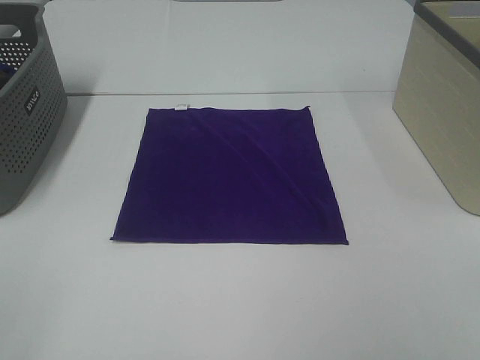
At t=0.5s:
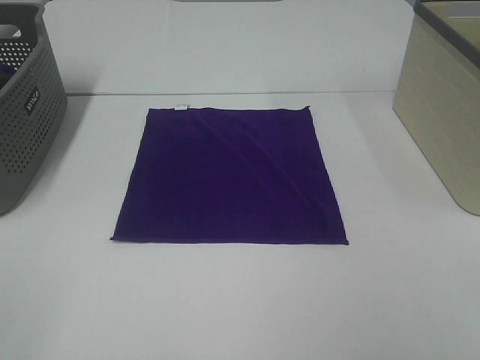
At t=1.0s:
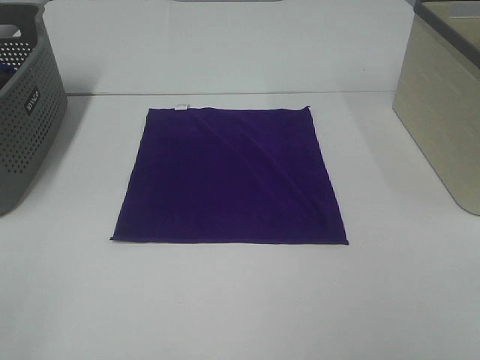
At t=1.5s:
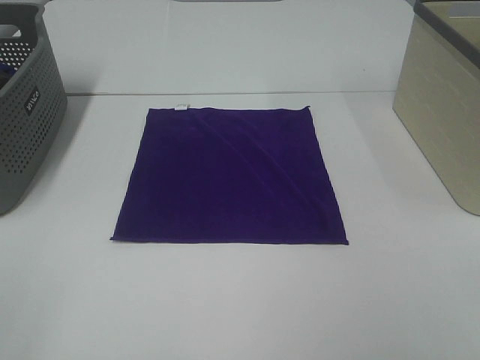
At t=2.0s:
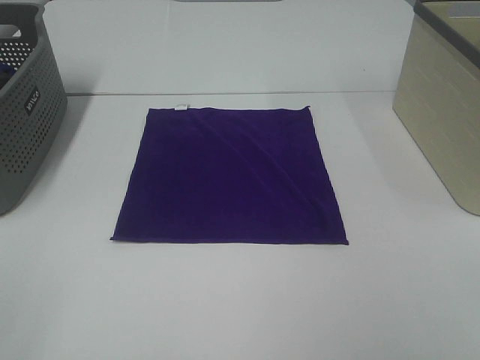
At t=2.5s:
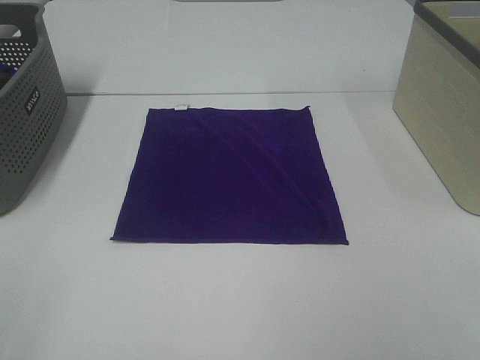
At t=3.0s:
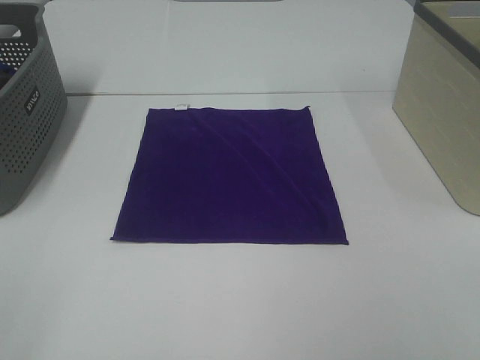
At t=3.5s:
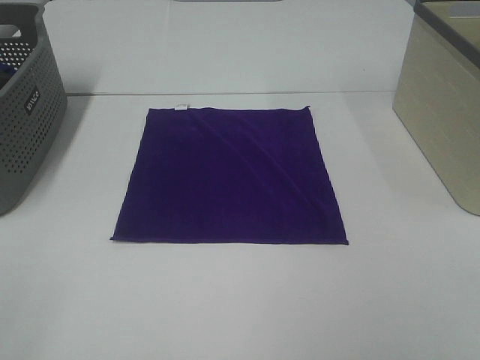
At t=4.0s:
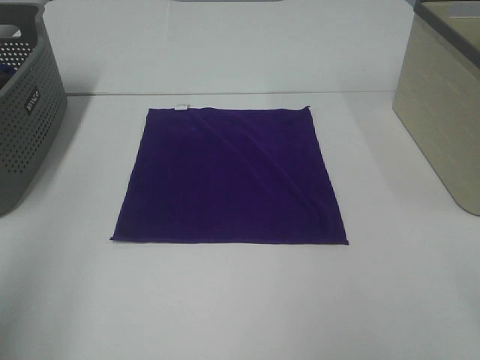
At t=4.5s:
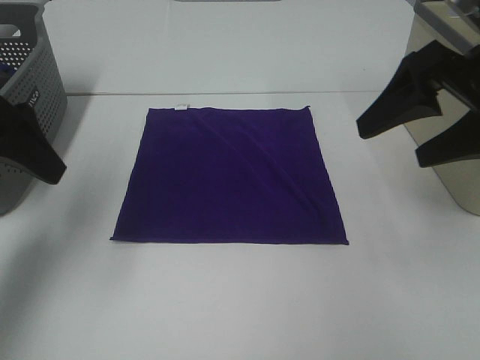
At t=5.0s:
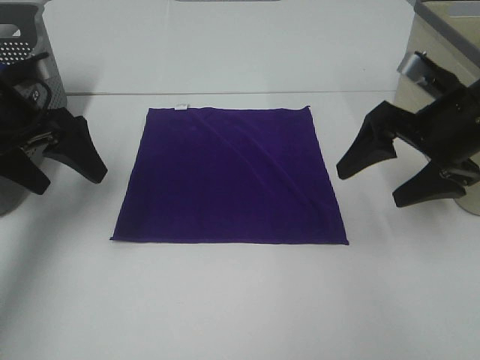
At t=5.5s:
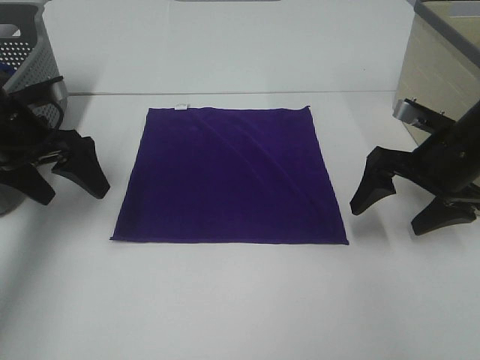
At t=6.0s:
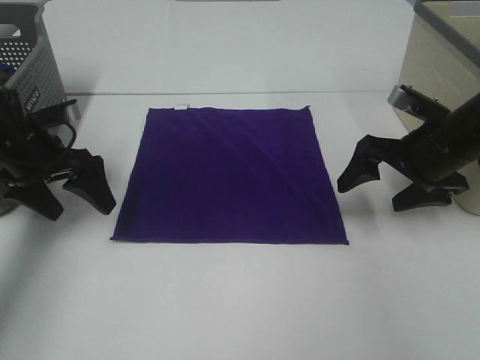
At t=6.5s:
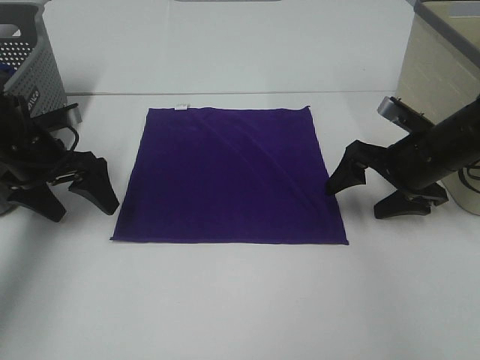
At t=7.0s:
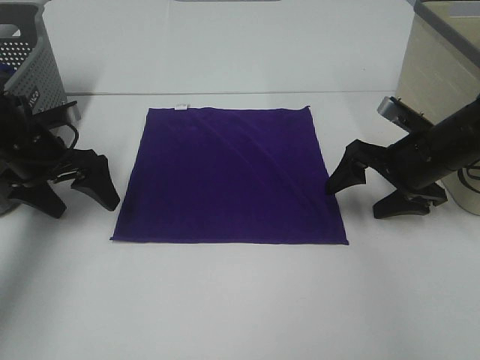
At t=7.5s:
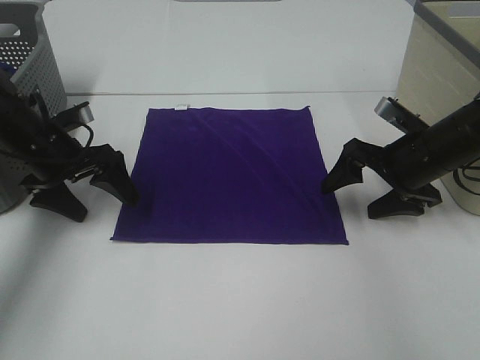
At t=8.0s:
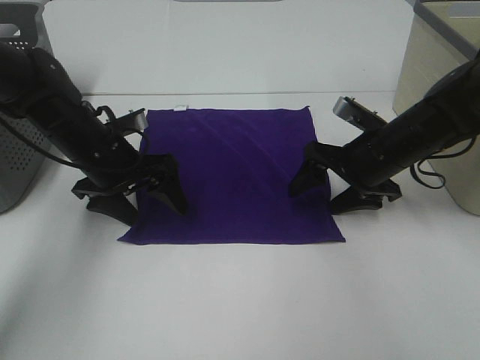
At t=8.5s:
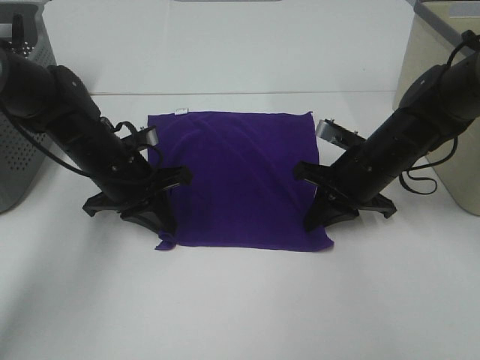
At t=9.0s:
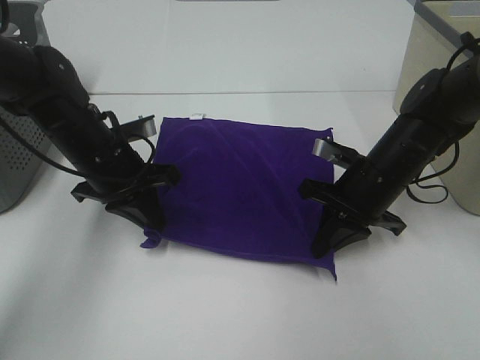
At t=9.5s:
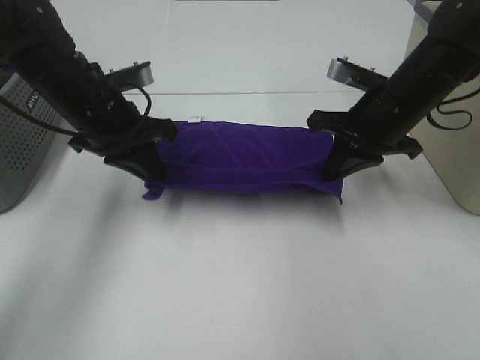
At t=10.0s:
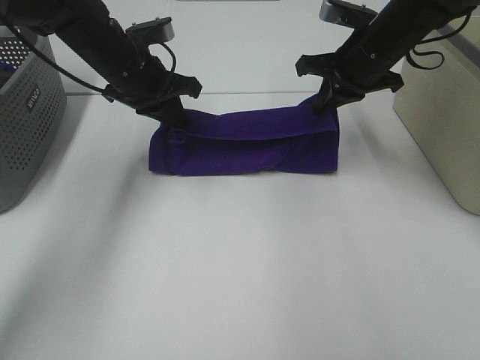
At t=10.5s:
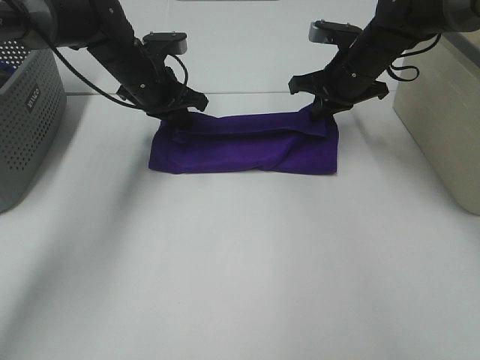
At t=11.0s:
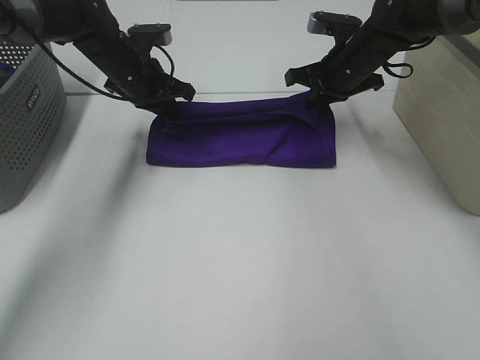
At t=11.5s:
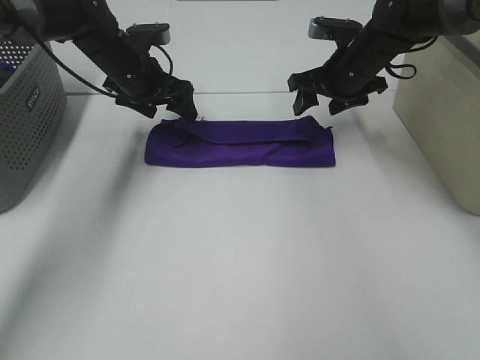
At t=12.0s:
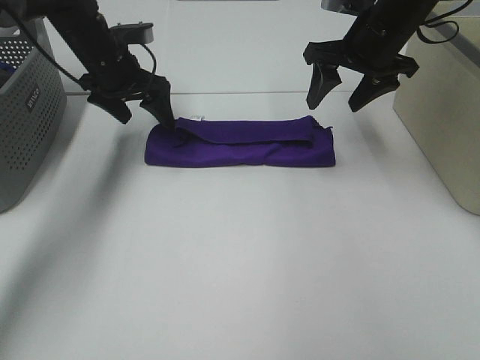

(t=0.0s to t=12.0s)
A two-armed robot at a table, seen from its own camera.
Task of the whole recording: Fold towels.
Step, t=0.0s - t=8.5s: Left hand: grab the bottom left corner of purple towel.
Step, t=0.0s - t=8.5s: Right hand: grab the bottom right corner of purple towel.
Step, t=9.0s - t=11.0s: Left hand: fold the purple towel up.
Step, t=9.0s - t=11.0s: Right hand: fold the purple towel up.
t=0.0s - t=2.0s: Both grippers stay about where they are.
t=2.0s - t=4.0s: The left gripper travels forward and upward by about 15 cm.
t=4.0s - t=6.0s: The grippers both shift forward and downward by some 30 cm.
t=6.0s - t=8.0s: The right gripper travels to the left by some 5 cm, while the left gripper travels to the right by approximately 10 cm.
t=8.0s - t=10.0s: Both grippers move upward and forward, approximately 15 cm. The right gripper closes up. Meanwhile the left gripper closes its fingers.
t=10.0s - t=12.0s: The left gripper travels forward and to the left by roughly 10 cm, and opens its fingers, while the right gripper opens.

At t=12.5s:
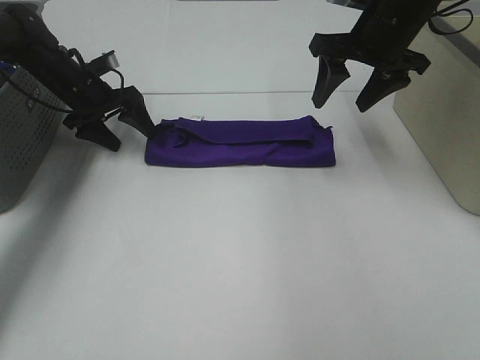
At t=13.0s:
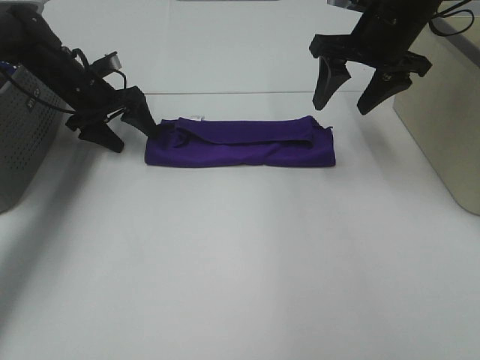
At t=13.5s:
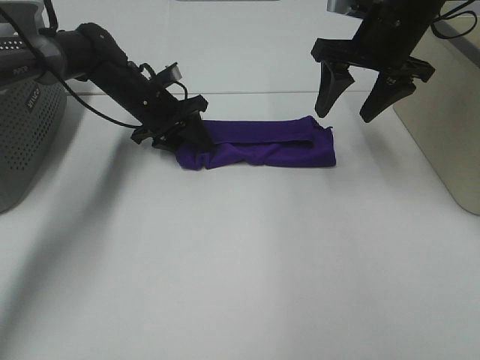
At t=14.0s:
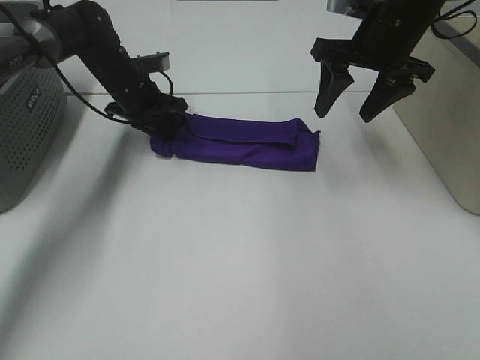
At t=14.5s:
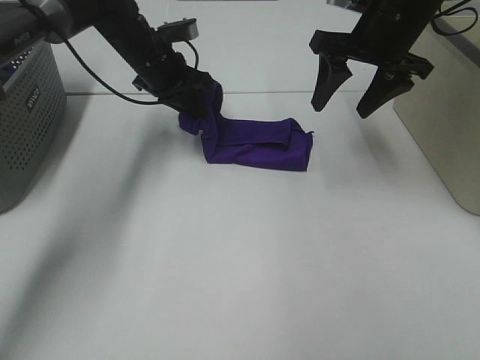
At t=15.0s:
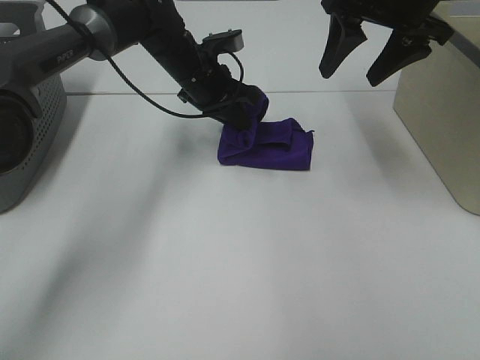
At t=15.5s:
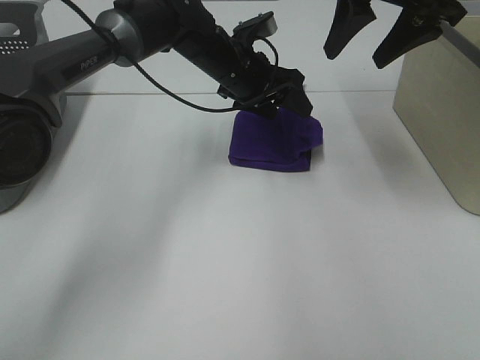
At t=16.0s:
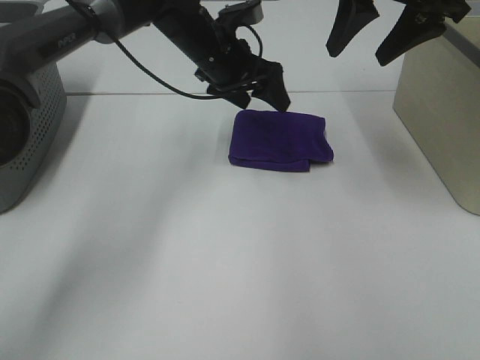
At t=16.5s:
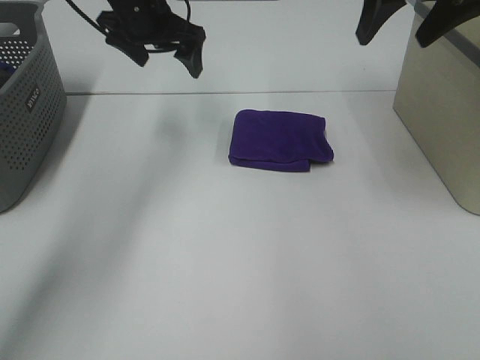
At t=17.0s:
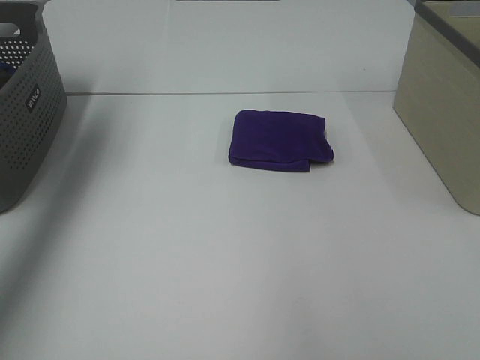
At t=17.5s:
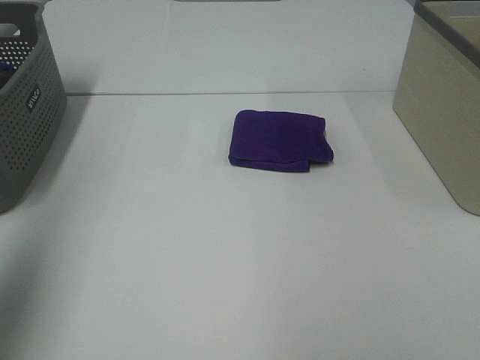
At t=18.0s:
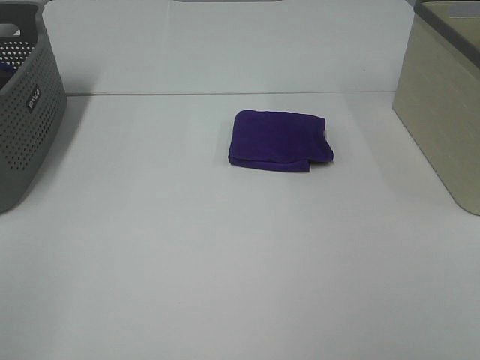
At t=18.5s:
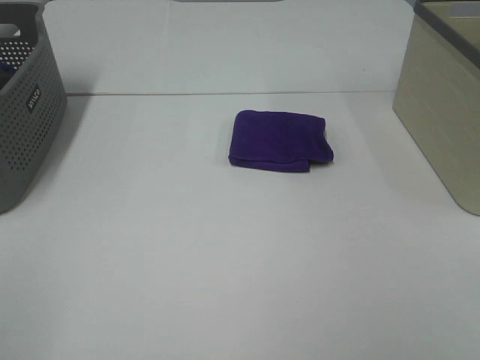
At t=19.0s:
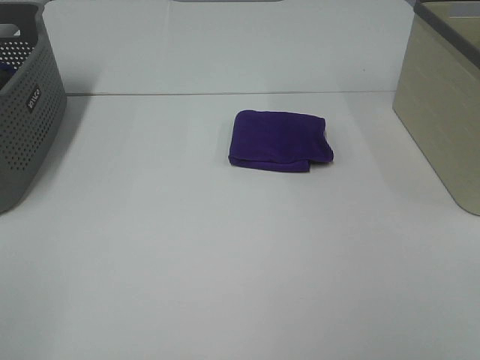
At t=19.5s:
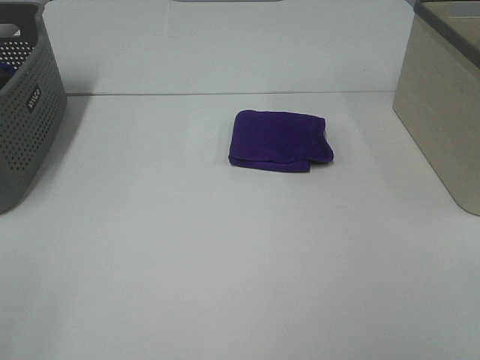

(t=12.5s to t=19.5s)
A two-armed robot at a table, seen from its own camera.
Task of the whole recording: Fold towels.
Step, t=12.5s - t=15.0s: Left hand: fold the purple towel from left to right.
t=12.5s - t=14.5s: The left gripper moves to the right, roughly 15 cm, and closes up.
t=14.5s - t=16.0s: The right gripper is displaced upward by some 5 cm; the left gripper shifts some 10 cm to the right, and opens its fingers.
t=16.0s - t=17.5s: The right gripper is displaced backward by some 35 cm. The left gripper shifts about 50 cm backward, to the left and upward.
t=17.5s - t=19.5s: The left gripper heads backward and downward, covering about 20 cm.

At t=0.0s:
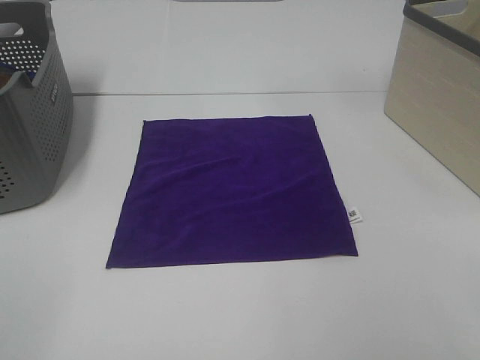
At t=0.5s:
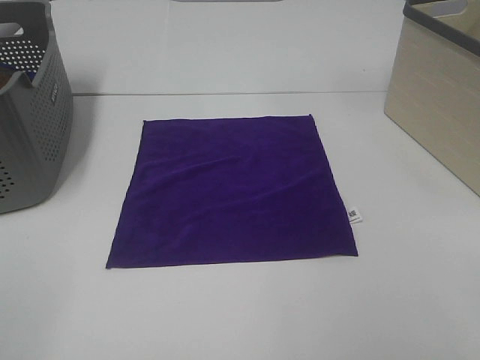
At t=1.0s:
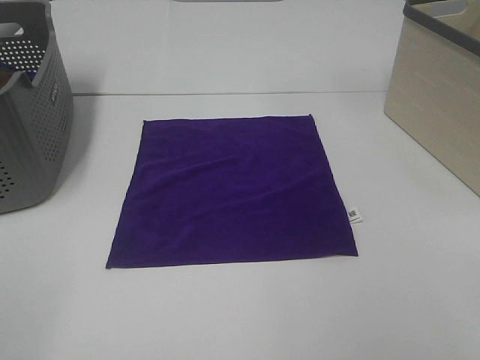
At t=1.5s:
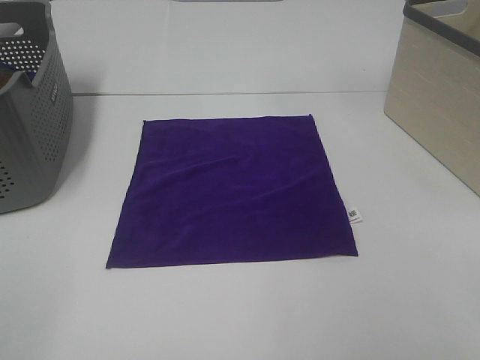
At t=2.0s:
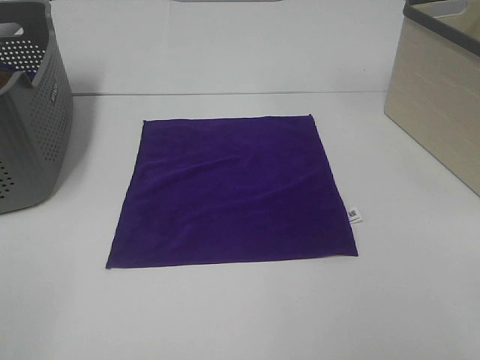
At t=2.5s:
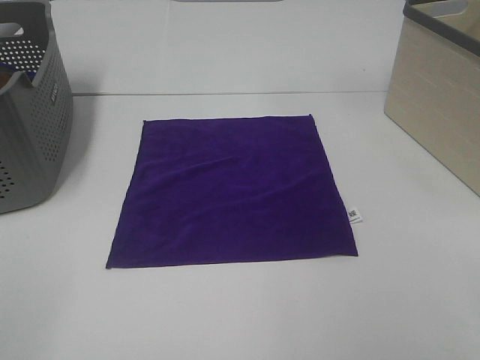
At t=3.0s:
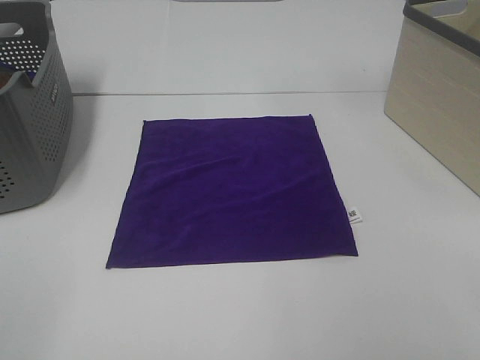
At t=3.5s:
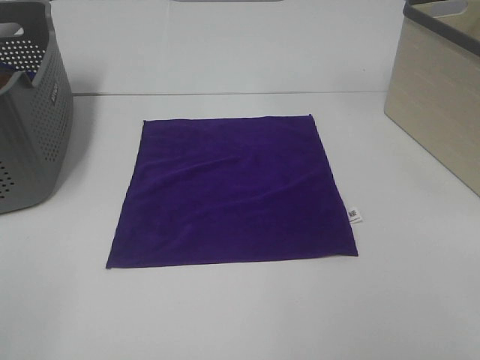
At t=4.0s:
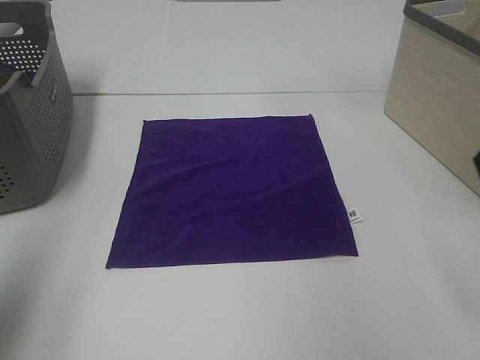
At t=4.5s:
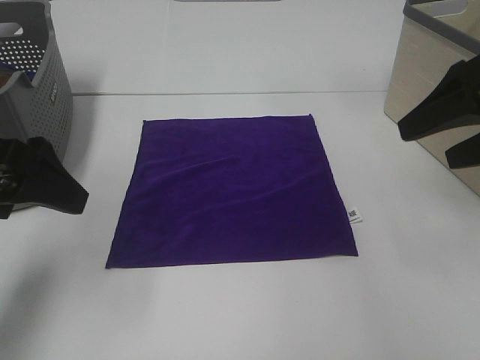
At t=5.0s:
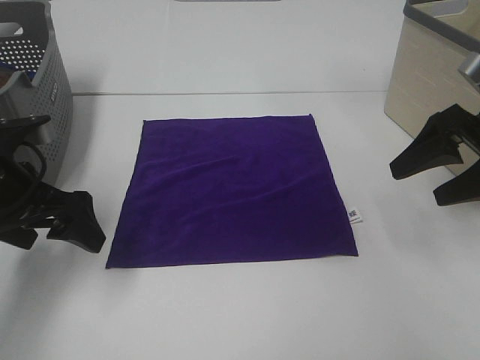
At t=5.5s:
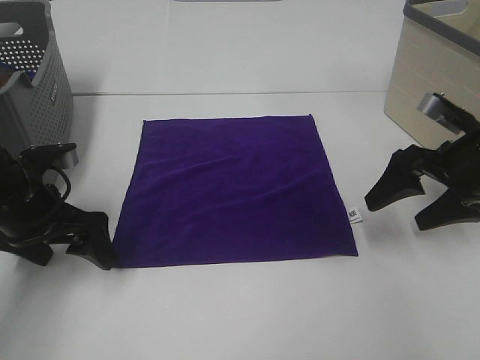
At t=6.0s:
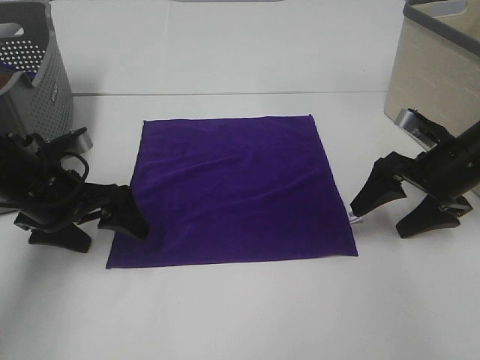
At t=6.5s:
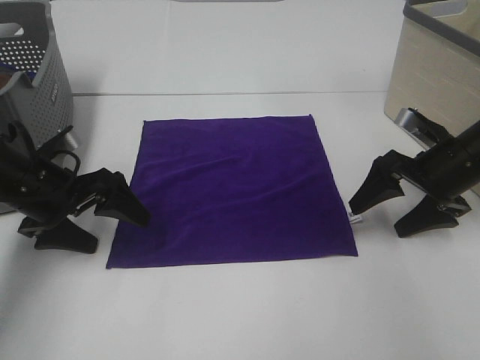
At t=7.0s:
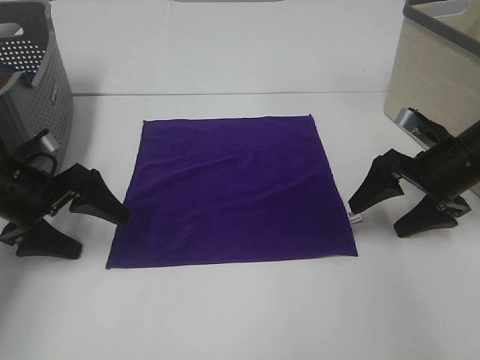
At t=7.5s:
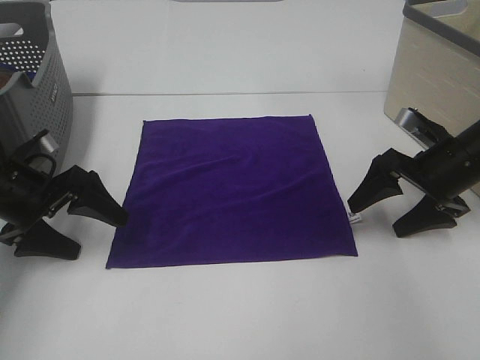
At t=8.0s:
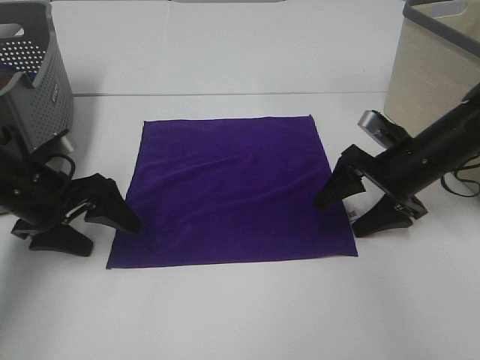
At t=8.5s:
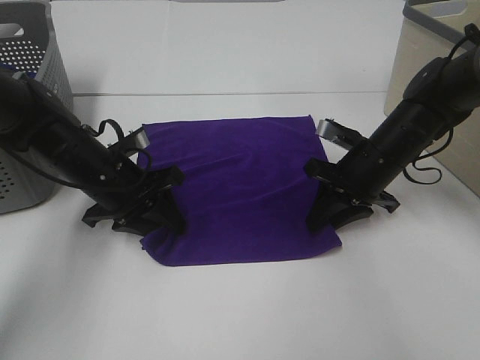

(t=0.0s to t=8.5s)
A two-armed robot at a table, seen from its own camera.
Task of the whole recording: Fold towels.
t=0.0s - t=2.0s: Neither gripper changes place.
t=2.0s - t=4.0s: The left gripper moves forward, some 15 cm.
t=4.0s - t=6.5s: The grippers both shift downward and forward by roughly 30 cm.
t=6.5s - t=8.5s: The left gripper travels to the right by some 5 cm, and closes, while the right gripper is displaced to the left by roughly 10 cm, and closes.
